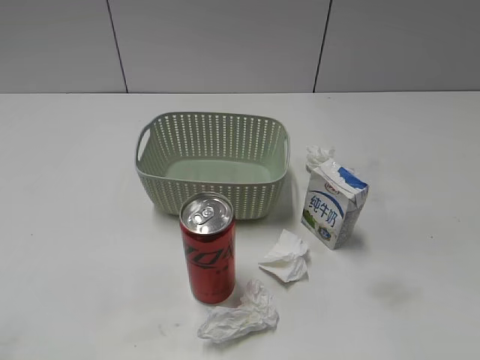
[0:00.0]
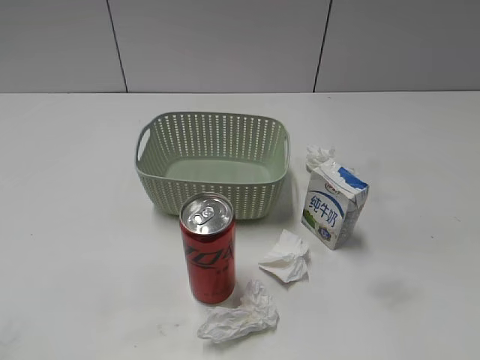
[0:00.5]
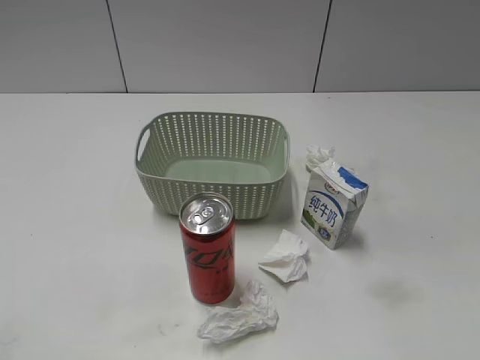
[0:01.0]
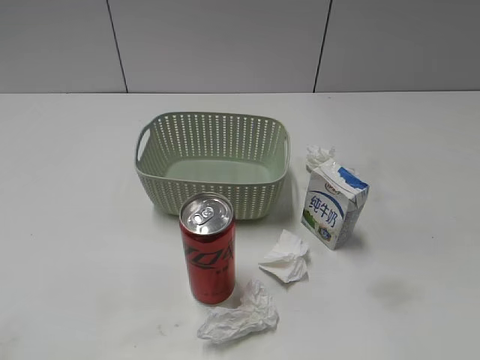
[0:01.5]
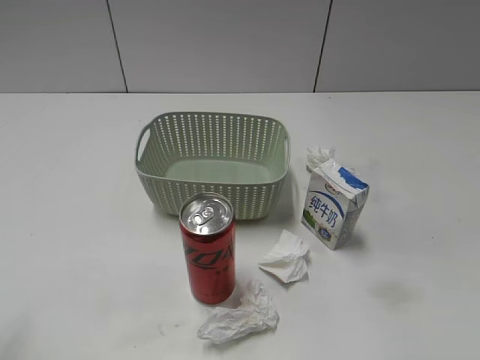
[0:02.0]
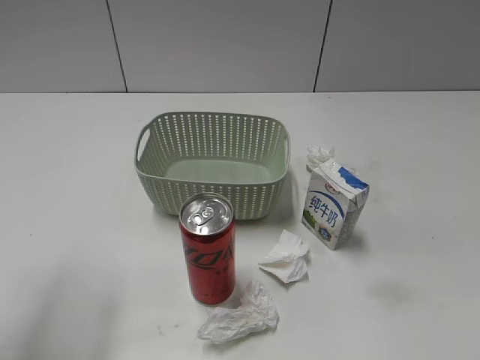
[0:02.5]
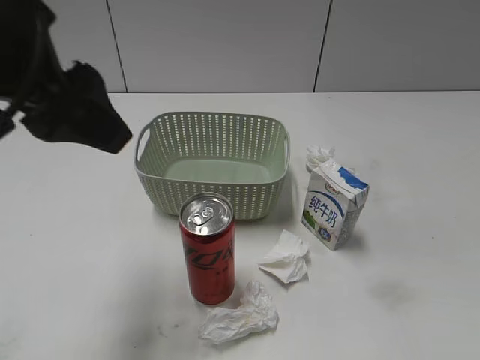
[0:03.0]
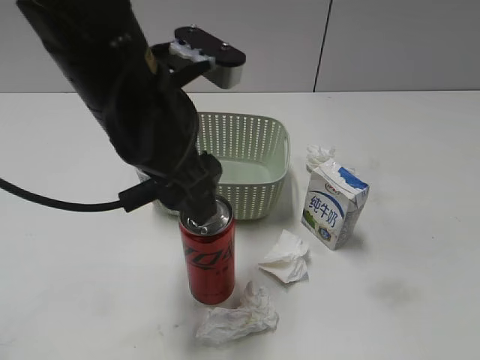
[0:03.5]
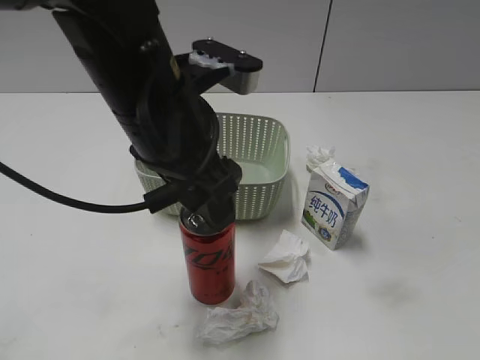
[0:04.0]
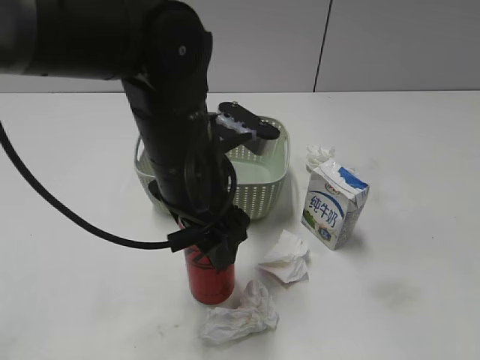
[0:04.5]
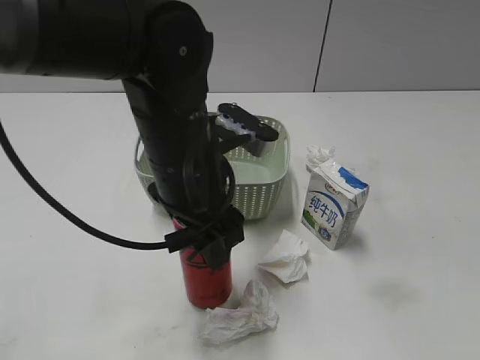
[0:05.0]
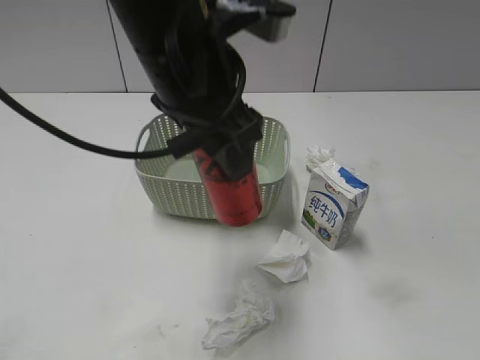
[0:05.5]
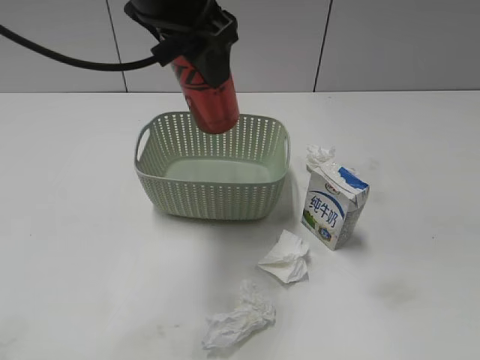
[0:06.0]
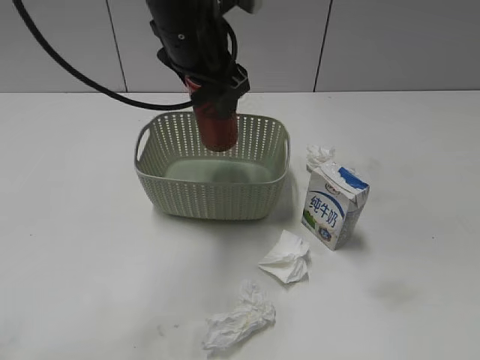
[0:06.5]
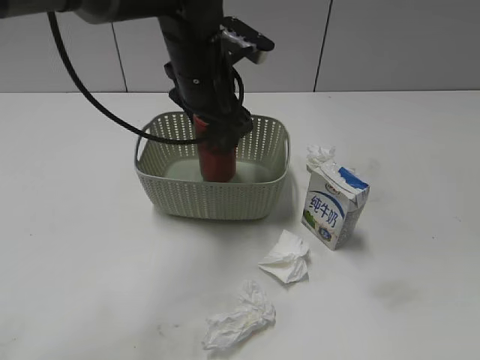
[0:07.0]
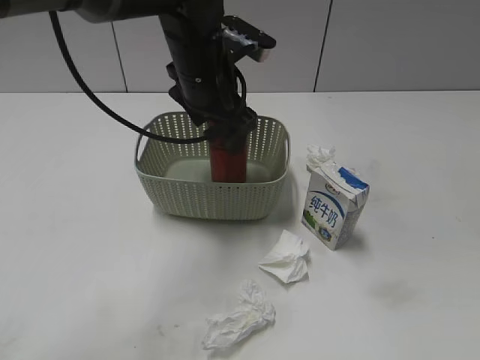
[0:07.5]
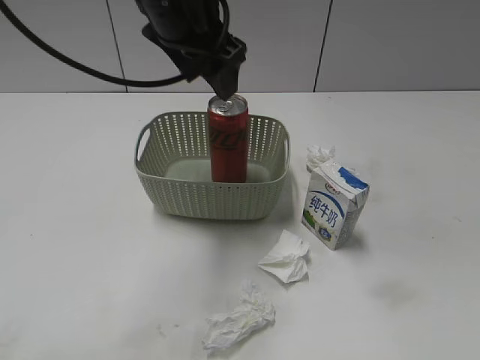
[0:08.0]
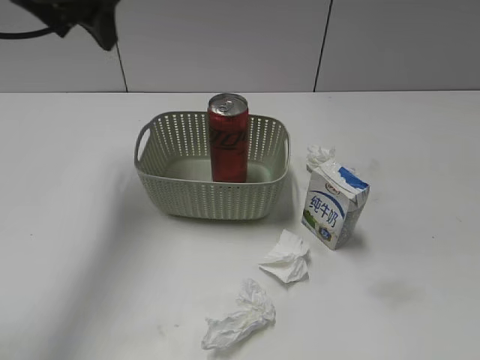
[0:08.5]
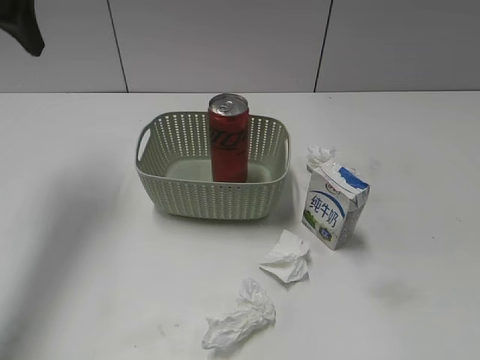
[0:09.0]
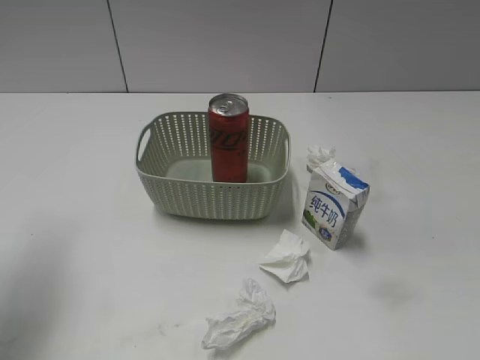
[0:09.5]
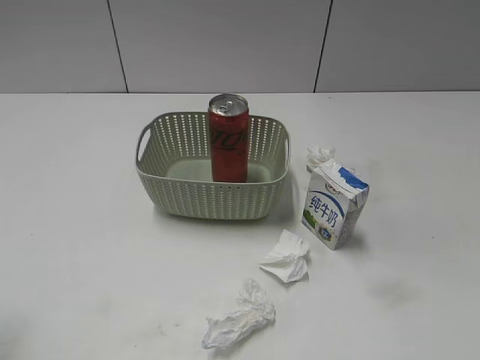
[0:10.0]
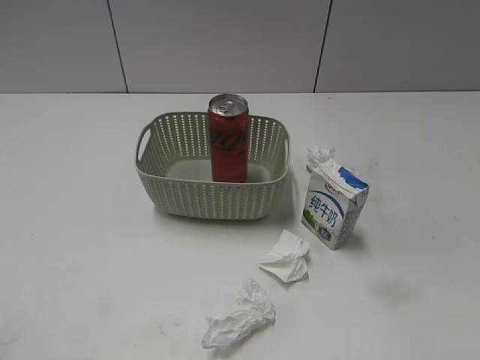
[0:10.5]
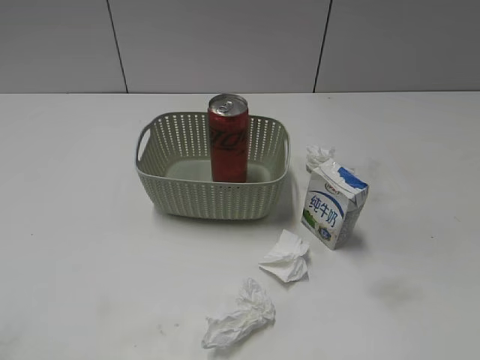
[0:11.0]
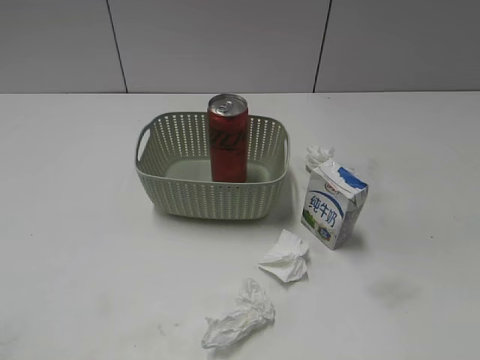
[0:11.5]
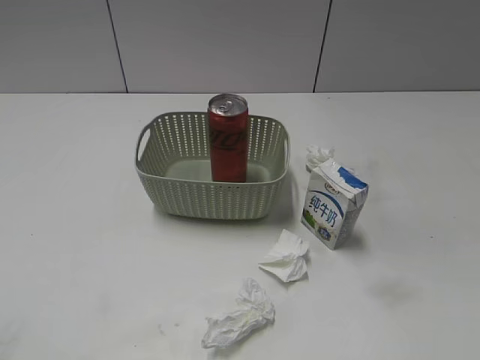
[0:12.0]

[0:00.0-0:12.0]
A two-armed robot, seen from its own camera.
Step, 0:03.0 to 0:04.5: Grasp the cola can with left gripper.
Step, 0:05.0 to 0:08.0: Place the cola can in the basket with left gripper.
0:02.0 to 0:04.0: The left gripper is displaced to the right and forward by approximately 30 cm.
0:04.0 to 0:06.0: The left gripper moves upward and forward, approximately 10 cm, and closes up.
0:06.0 to 0:08.0: The left gripper heads forward, covering some 5 cm, goes downward and returns, about 15 cm each way, and opens.
0:08.0 to 0:10.0: The left gripper shifts some 35 cm to the left and backward.

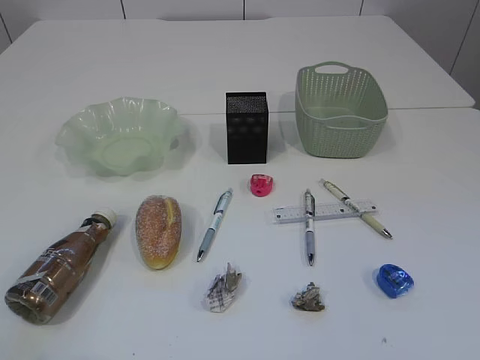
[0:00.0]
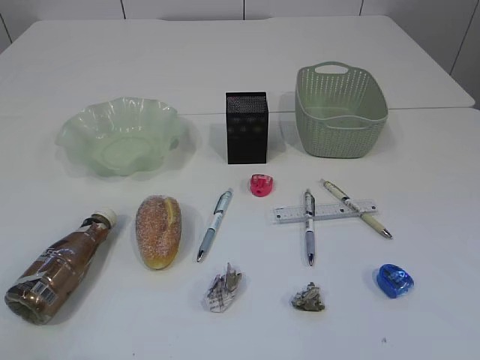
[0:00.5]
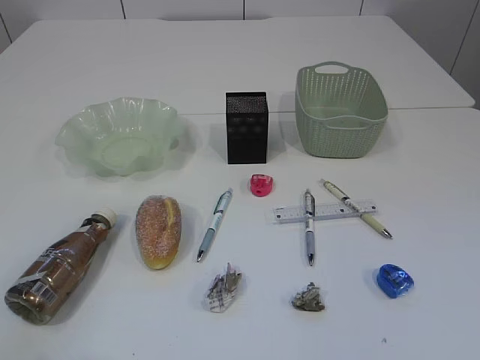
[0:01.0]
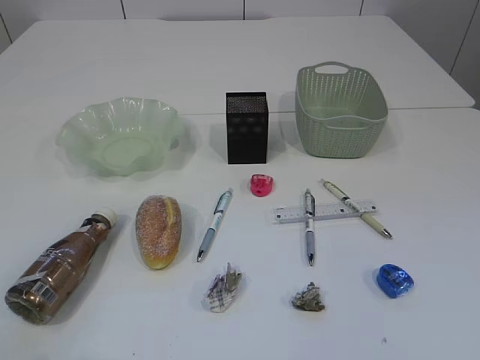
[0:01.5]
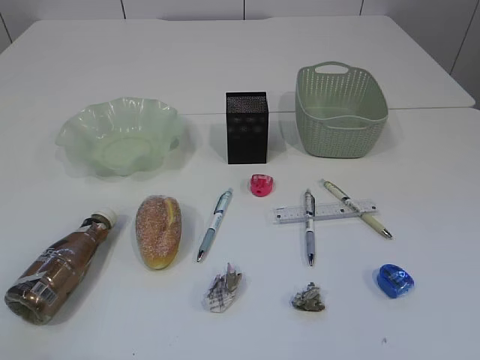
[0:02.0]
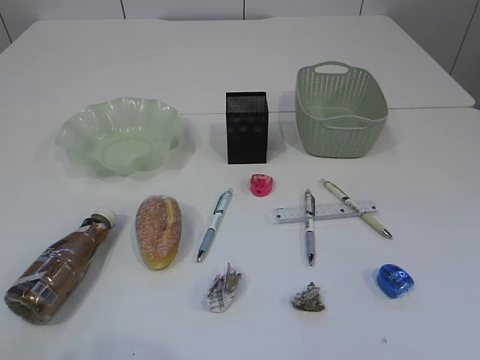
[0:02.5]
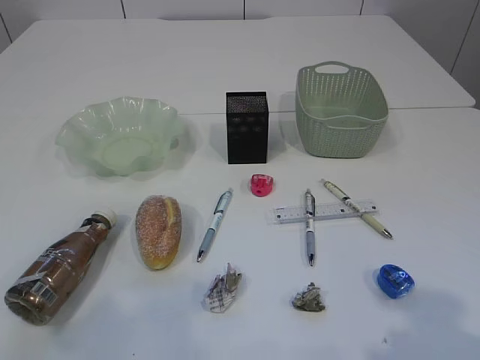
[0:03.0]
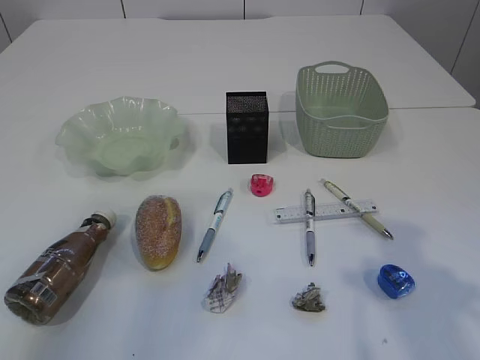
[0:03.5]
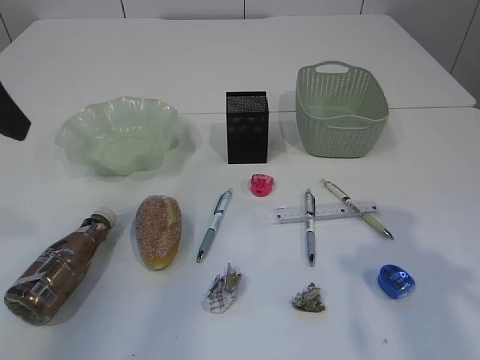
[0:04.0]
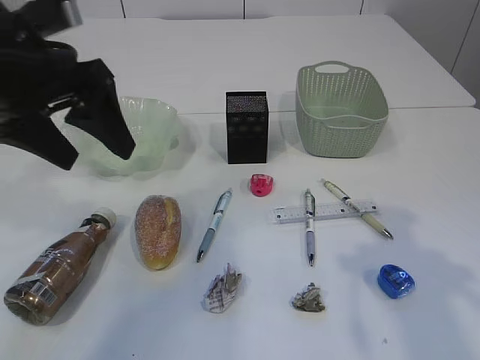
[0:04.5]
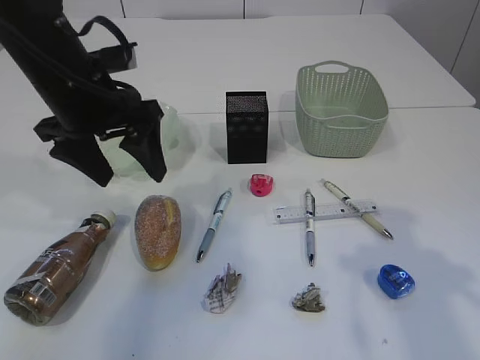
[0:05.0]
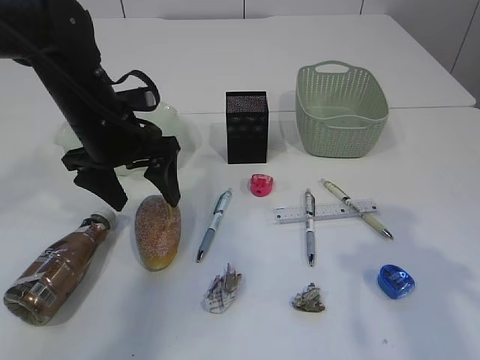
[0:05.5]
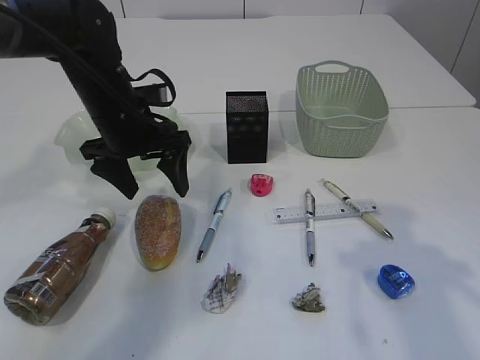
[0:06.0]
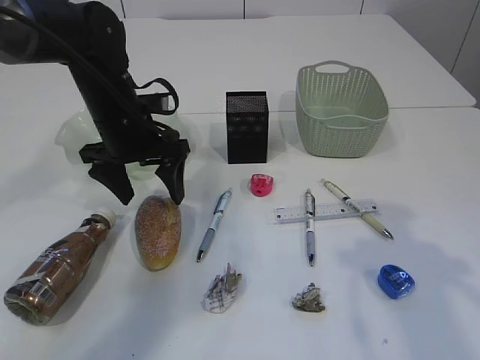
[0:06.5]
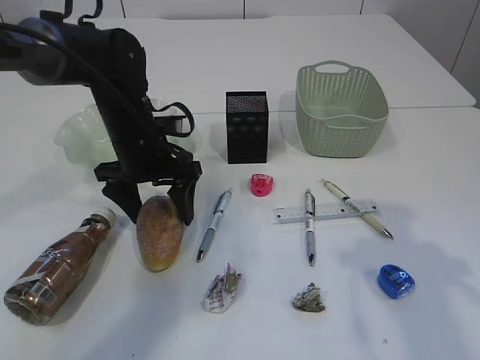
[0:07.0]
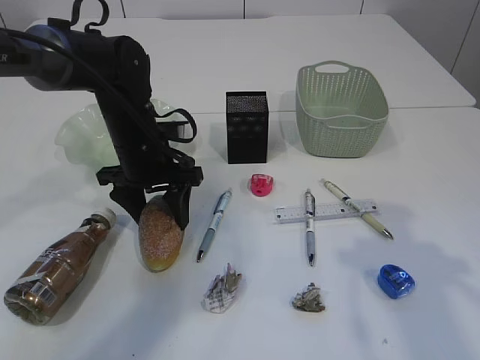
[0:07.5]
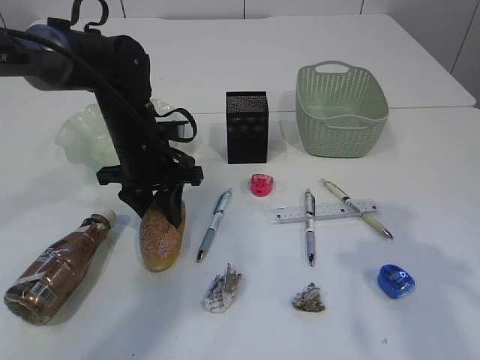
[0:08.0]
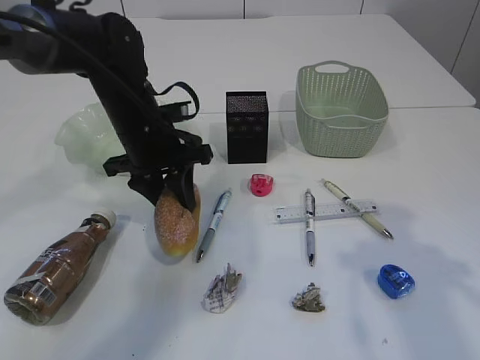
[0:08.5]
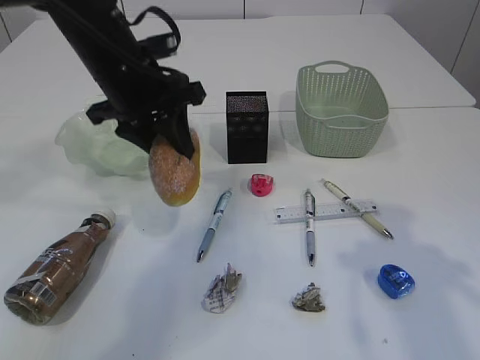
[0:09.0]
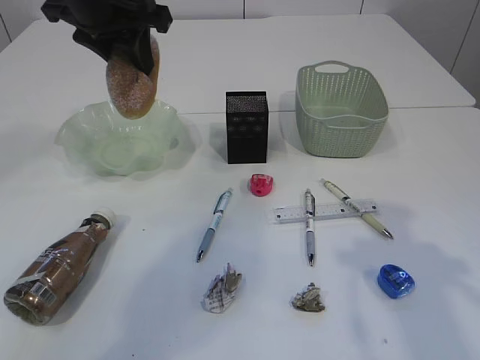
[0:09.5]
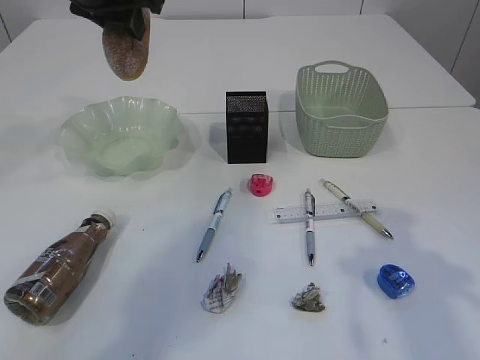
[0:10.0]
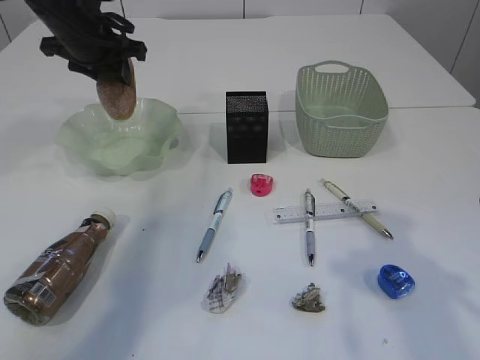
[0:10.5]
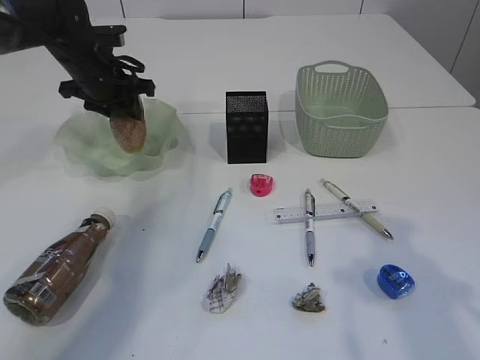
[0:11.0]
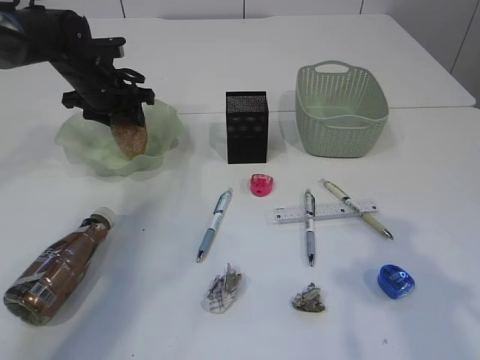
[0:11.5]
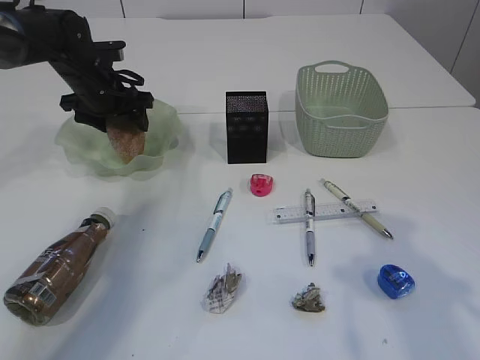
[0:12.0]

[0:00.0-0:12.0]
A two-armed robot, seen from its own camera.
0:02.0 to 0:04.0: The two grippers go approximately 25 cm forward.
0:04.0 to 0:06.0: The left gripper moves downward, forward and to the right, about 25 cm.
0:06.0 to 0:08.0: The left gripper closes.
0:08.0 to 0:10.0: The left gripper shifts roughly 20 cm upward.
0:10.0 to 0:12.0: The left gripper shifts some 20 cm downward and forward, and opens.

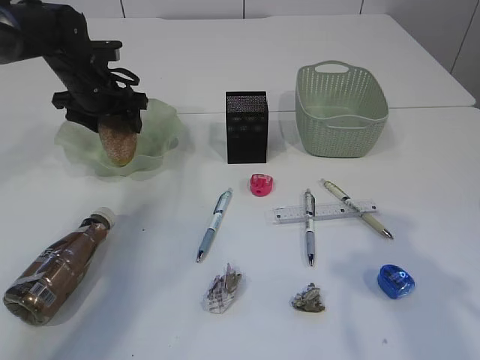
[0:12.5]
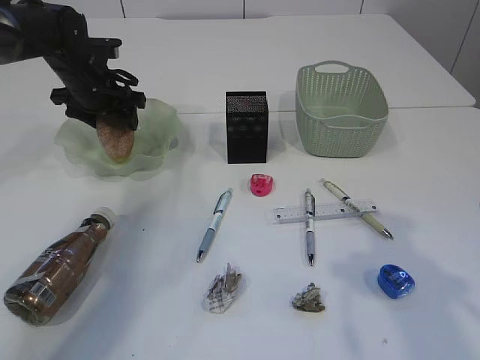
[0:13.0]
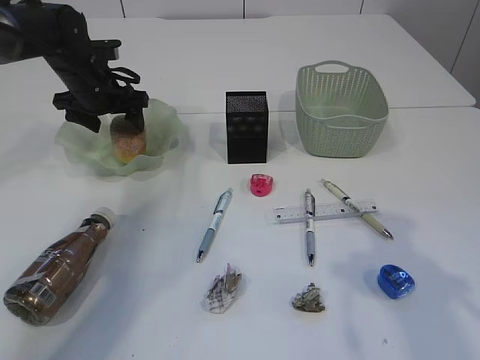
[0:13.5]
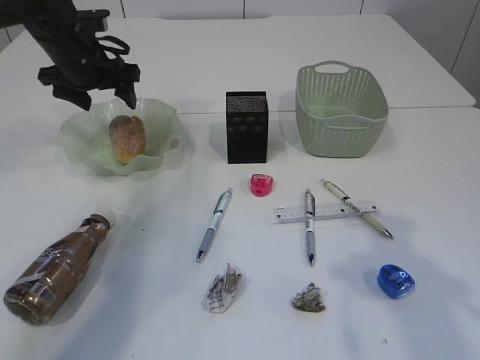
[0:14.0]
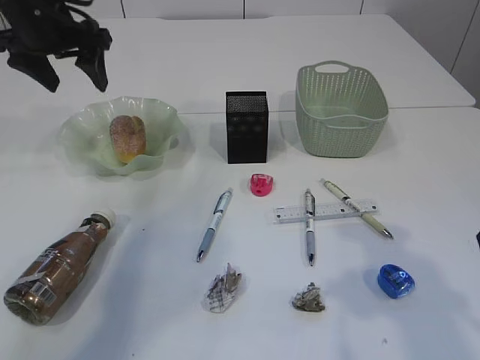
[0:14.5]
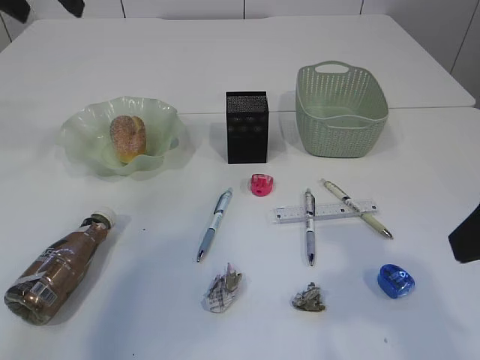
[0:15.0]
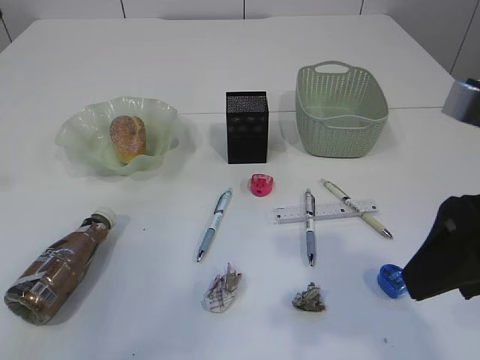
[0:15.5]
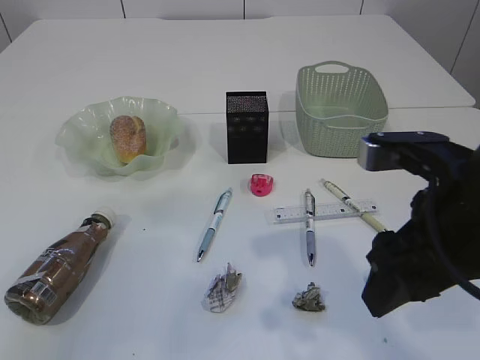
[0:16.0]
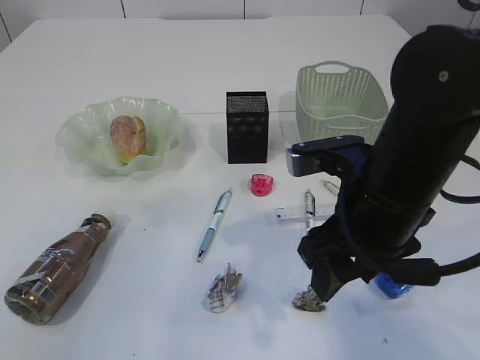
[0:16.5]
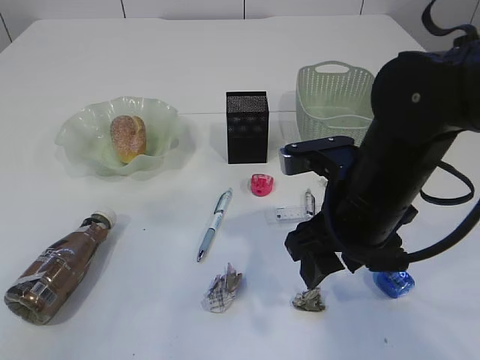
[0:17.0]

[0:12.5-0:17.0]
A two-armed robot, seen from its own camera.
0:12.5 to 0:14.5: The left gripper travels upward and backward by about 15 cm.
0:14.5 to 0:17.0: The right gripper is displaced to the left, downward and forward by about 20 cm, while the left gripper moves backward and upward, roughly 30 cm.
